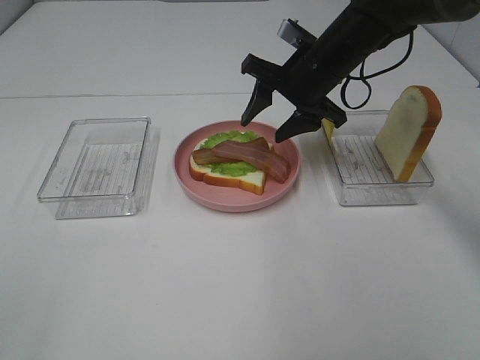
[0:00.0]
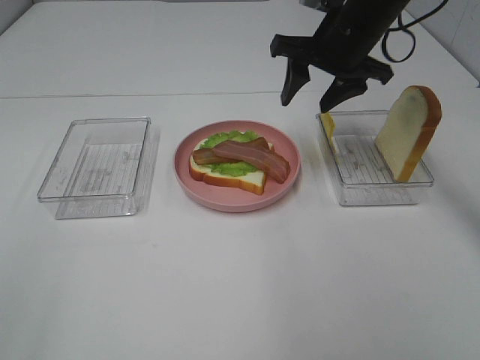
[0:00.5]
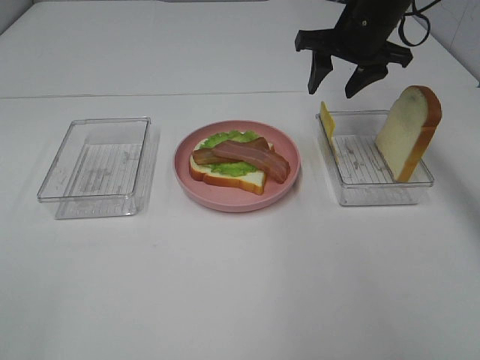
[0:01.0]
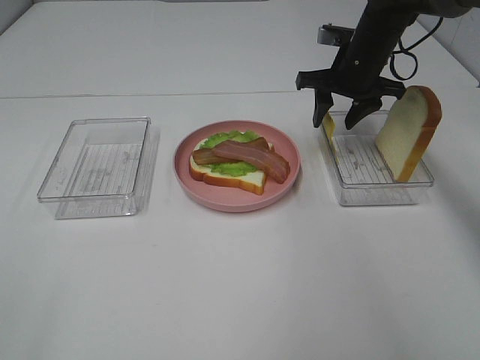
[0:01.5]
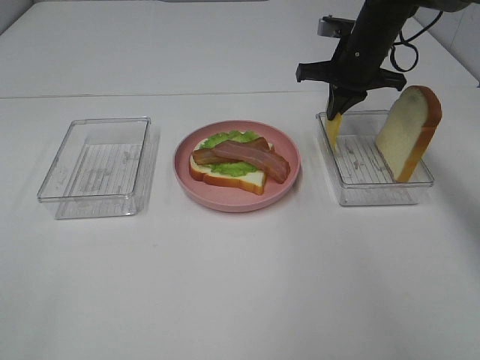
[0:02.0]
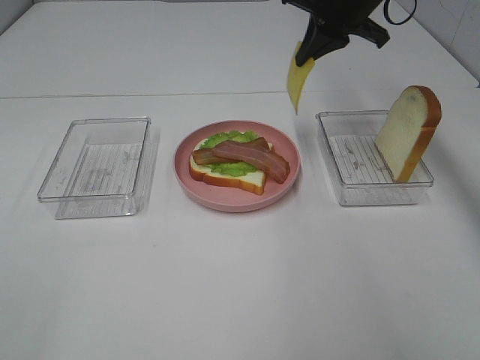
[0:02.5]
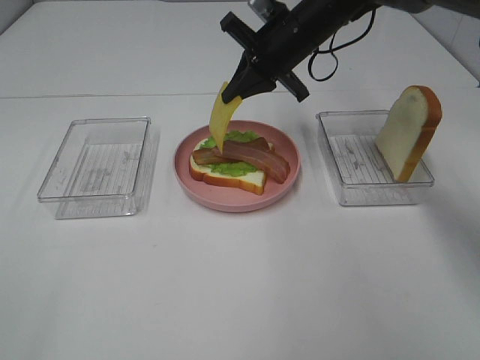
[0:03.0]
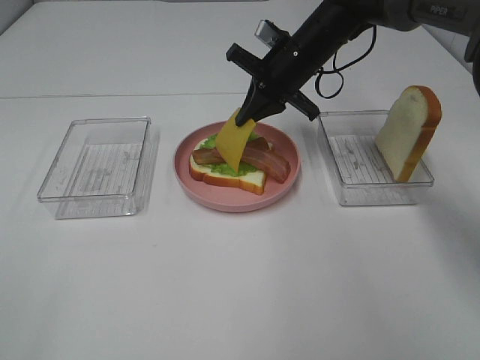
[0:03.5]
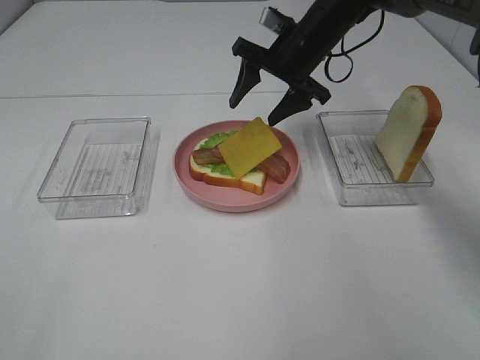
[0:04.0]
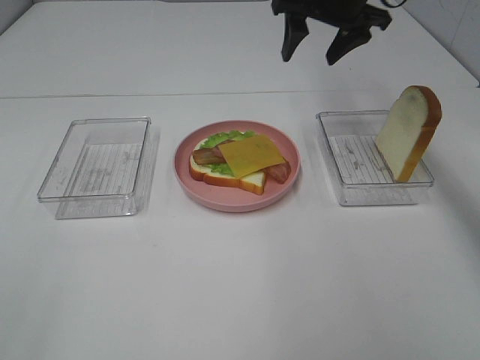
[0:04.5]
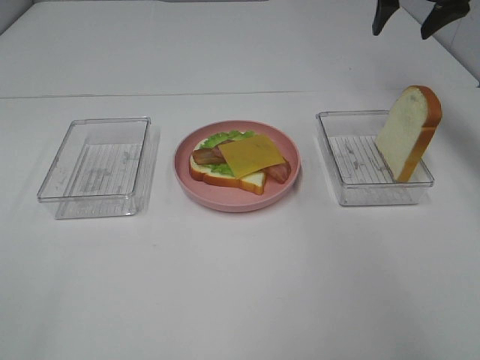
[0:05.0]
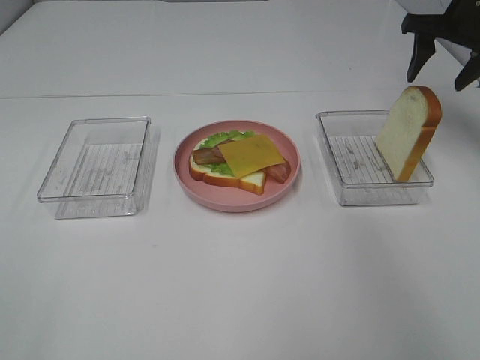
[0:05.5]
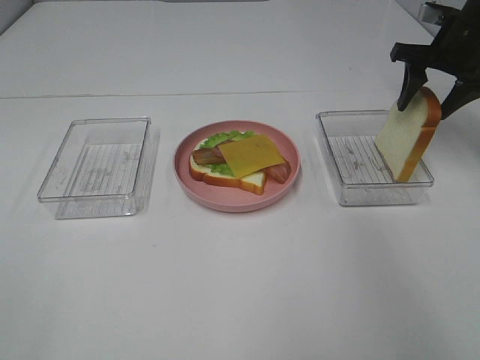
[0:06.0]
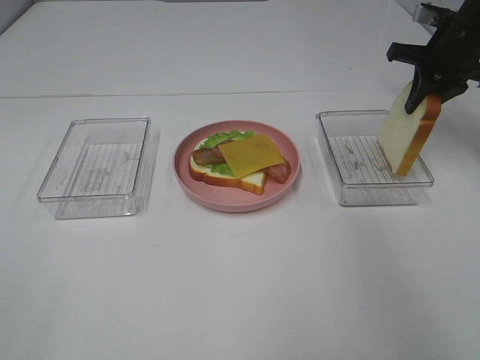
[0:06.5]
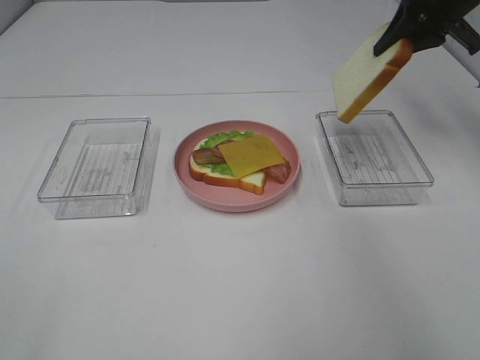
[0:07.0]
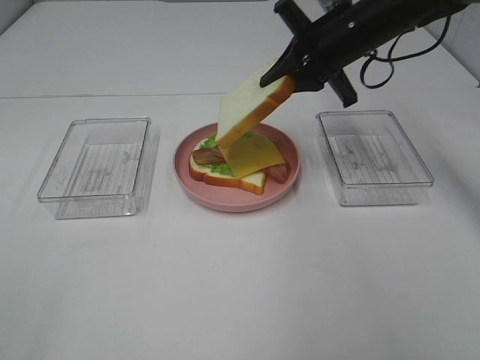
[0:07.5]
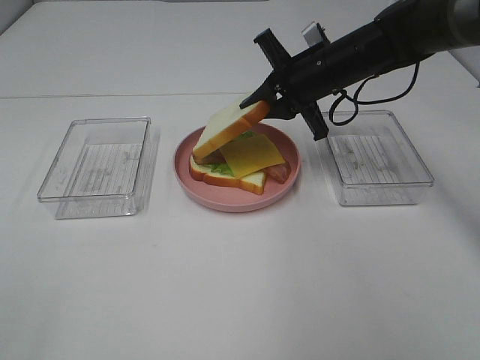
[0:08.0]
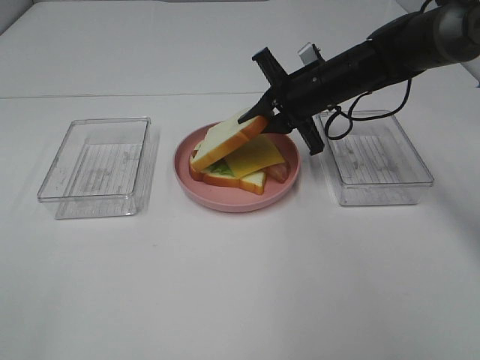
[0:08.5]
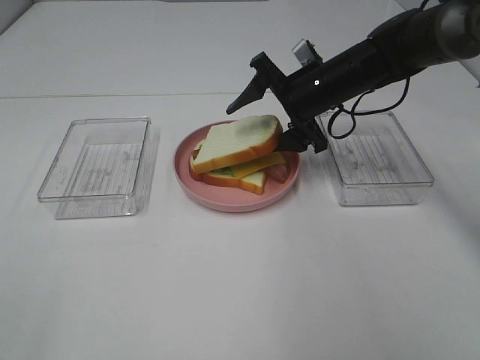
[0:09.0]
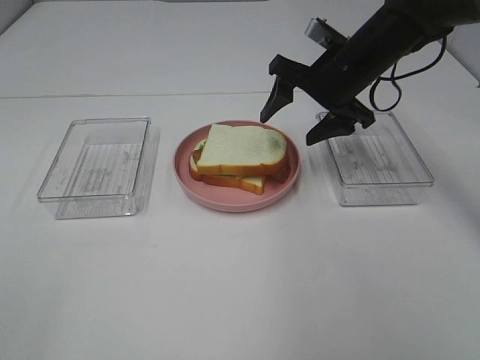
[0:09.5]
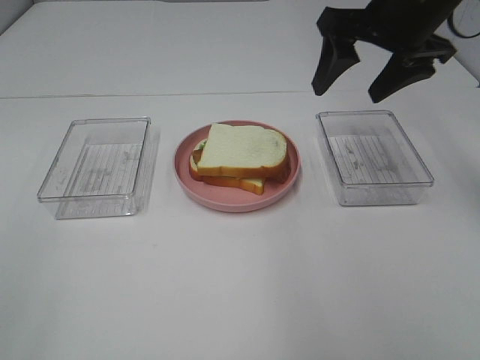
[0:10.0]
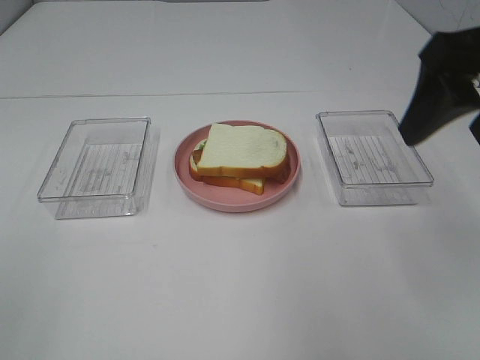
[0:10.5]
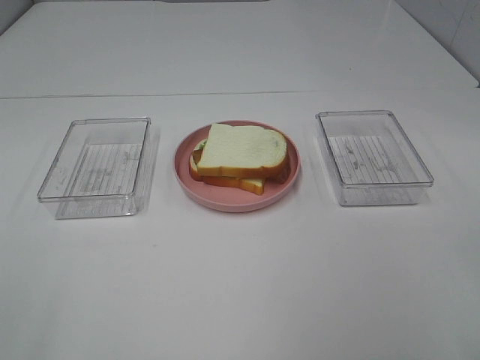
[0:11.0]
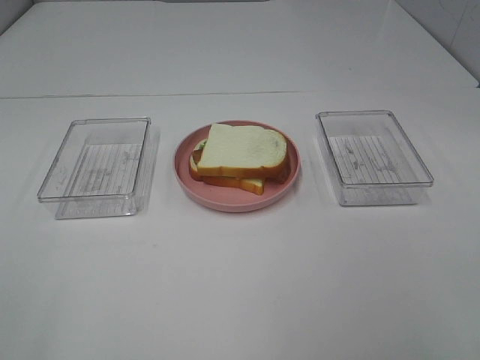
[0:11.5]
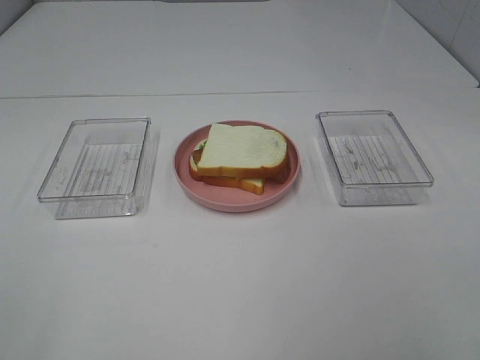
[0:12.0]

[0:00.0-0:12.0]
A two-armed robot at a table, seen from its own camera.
Task of the whole recording: Make sandwiches.
Step, 0:00.0 to 0:01.5: Right hand:grab the cheese slice.
Step, 0:02.0 to 0:04.0: Right hand:place the cheese slice on top of the bacon.
Step, 0:04.5 to 0:06.5: Right hand:grab the bread slice.
Step, 0:07.0 to 0:09.0: Right hand:place the bread slice on the cheese slice.
0:00.0 to 0:02.0: The right gripper travels forward and to the right by some 10 cm, and closes.
0:02.0 to 0:04.0: The right gripper goes some 10 cm to the left, moves approximately 10 cm upward and comes back, and opens.
0:04.0 to 0:06.0: The right gripper heads to the right, covering approximately 20 cm.
0:06.0 to 0:08.0: The right gripper goes about 20 cm to the left, and closes up.
0:08.0 to 0:10.0: The right gripper moves upward and backward, about 15 cm, and opens up.
0:10.0 to 0:12.0: The right gripper is displaced backward by about 30 cm.

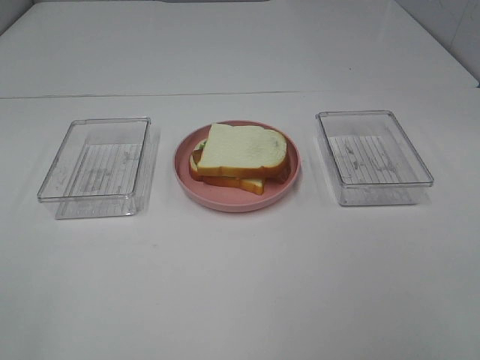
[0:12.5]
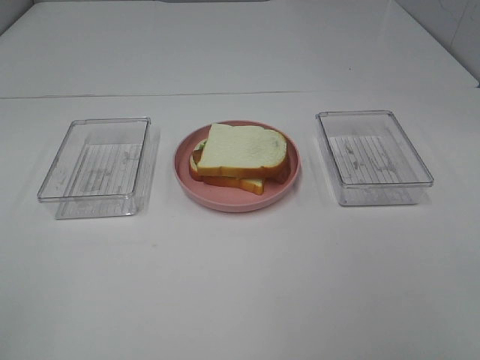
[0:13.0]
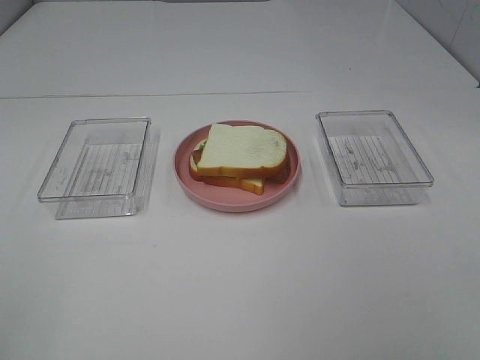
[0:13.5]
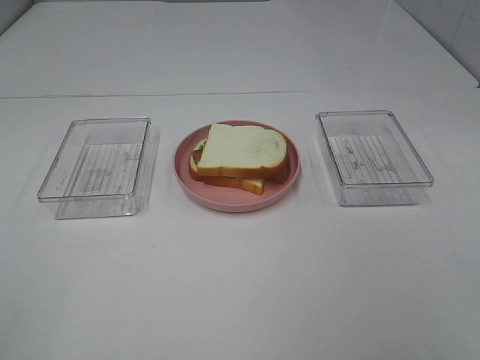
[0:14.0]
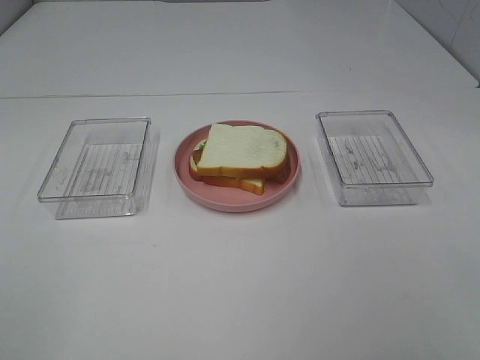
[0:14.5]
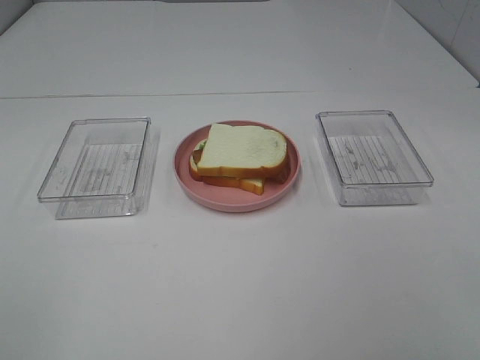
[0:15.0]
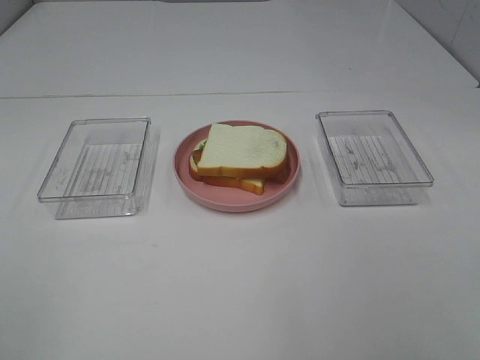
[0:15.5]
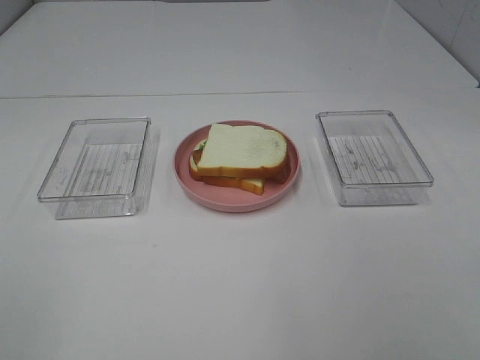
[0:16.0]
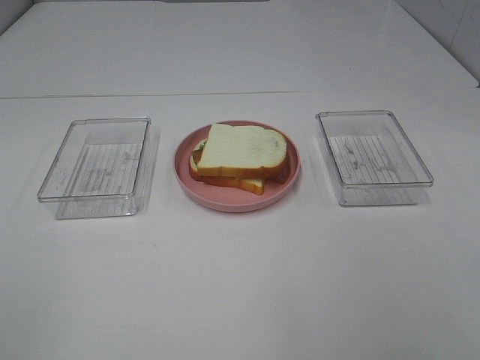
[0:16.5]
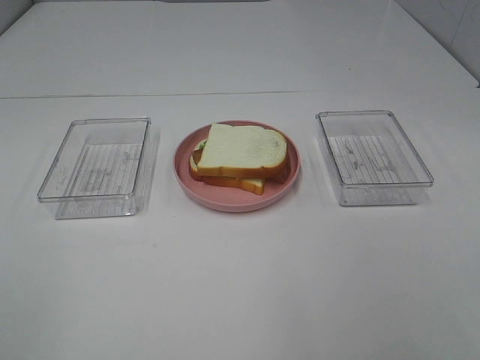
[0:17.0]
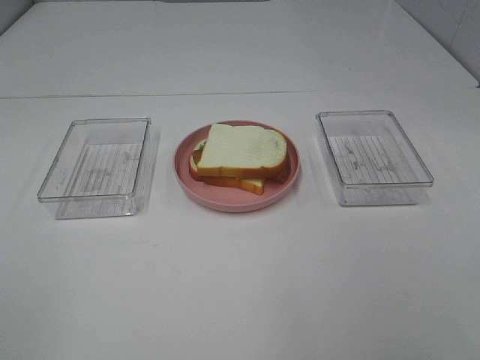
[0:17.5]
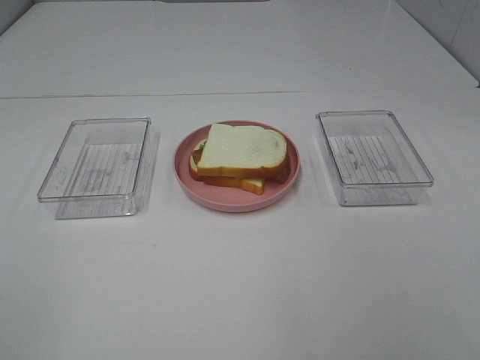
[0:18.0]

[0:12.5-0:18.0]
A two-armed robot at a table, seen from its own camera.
Task of the whole recording: Make sandwiches.
0:16.0 to 0:18.0: Neither gripper changes place.

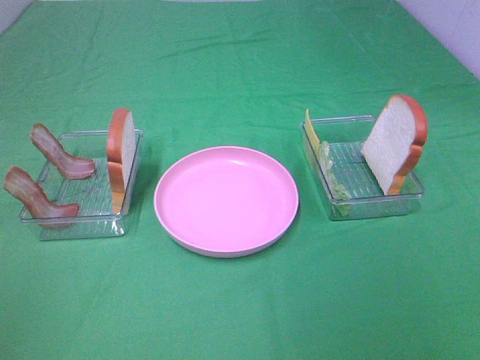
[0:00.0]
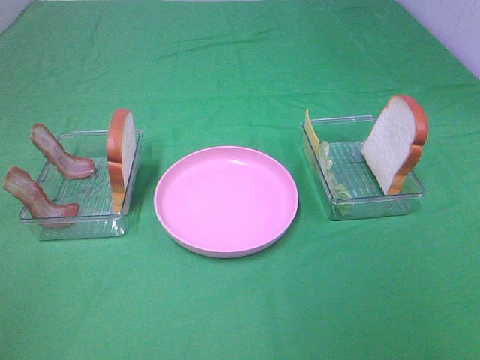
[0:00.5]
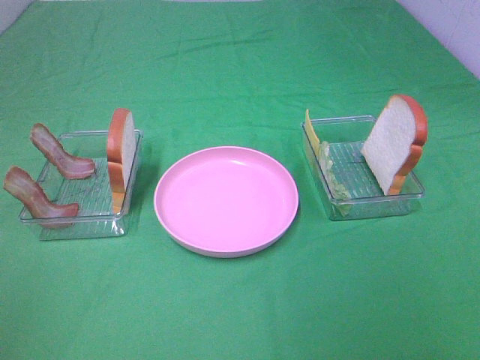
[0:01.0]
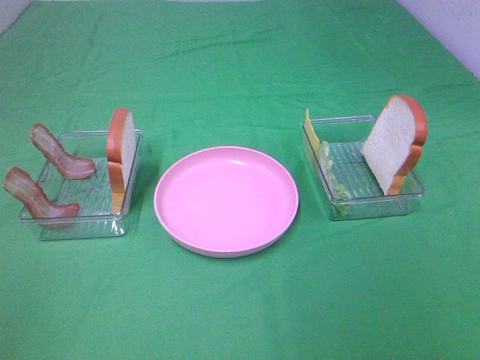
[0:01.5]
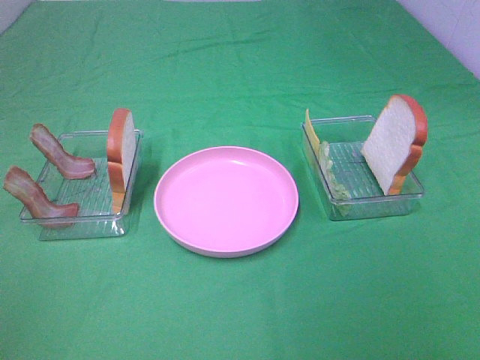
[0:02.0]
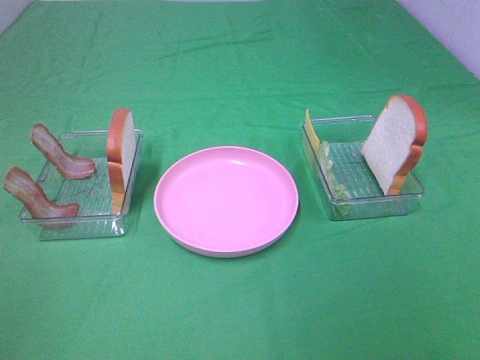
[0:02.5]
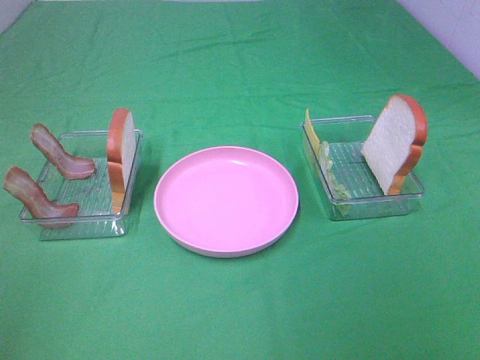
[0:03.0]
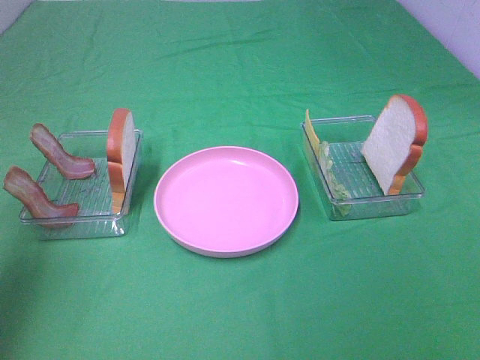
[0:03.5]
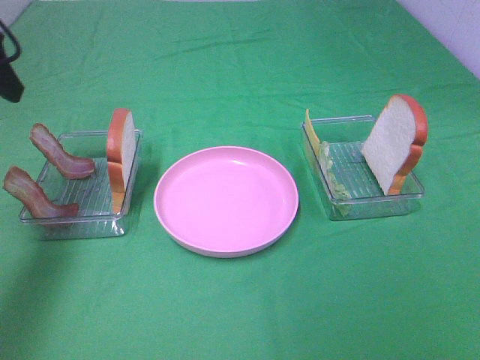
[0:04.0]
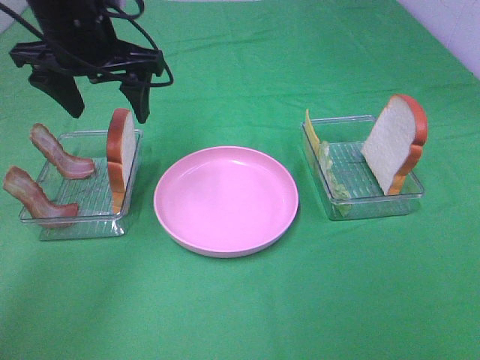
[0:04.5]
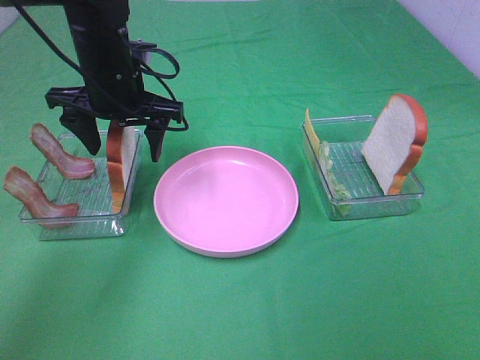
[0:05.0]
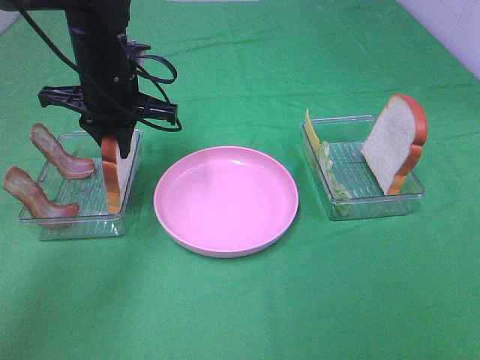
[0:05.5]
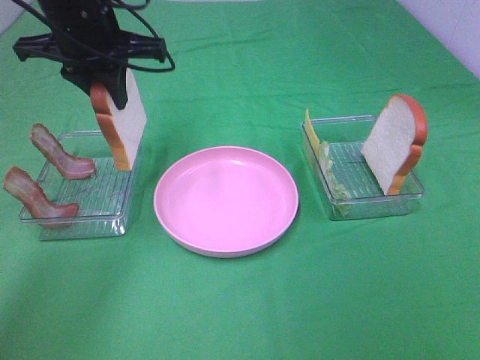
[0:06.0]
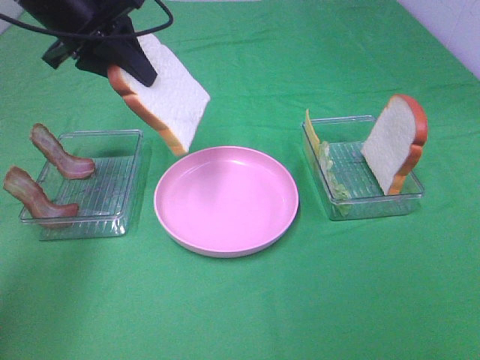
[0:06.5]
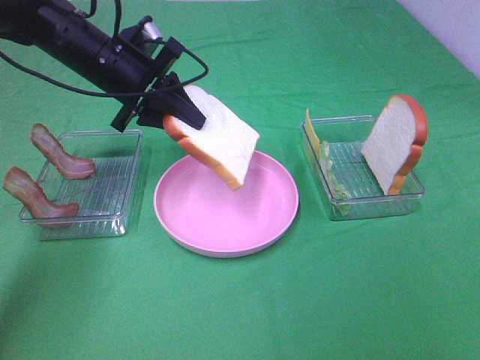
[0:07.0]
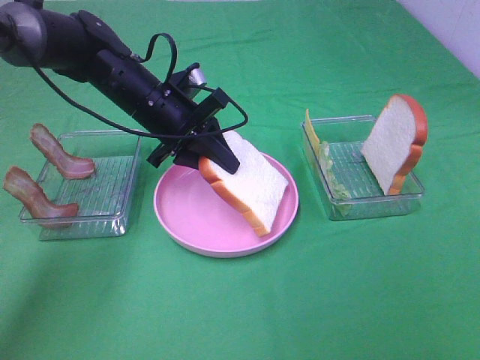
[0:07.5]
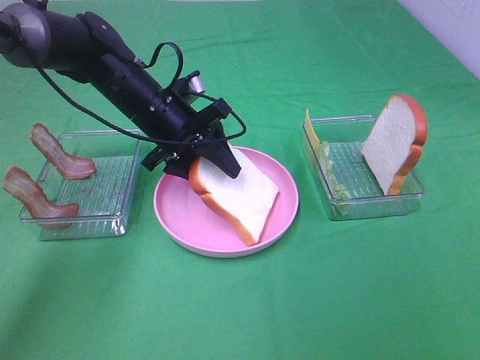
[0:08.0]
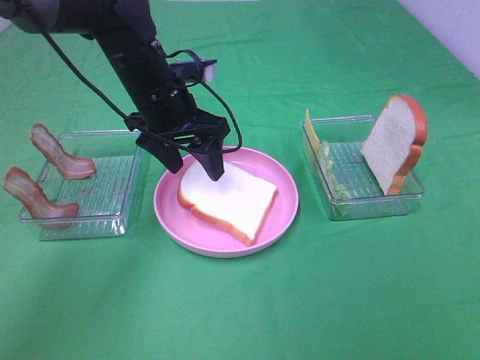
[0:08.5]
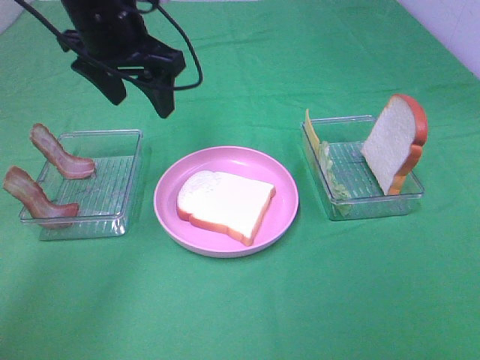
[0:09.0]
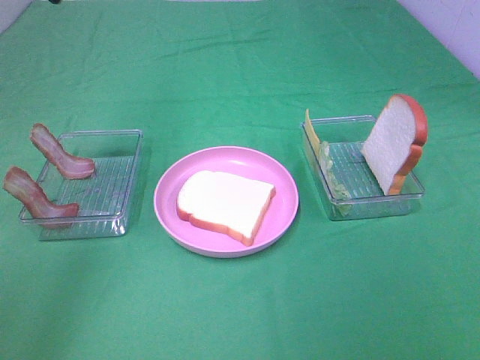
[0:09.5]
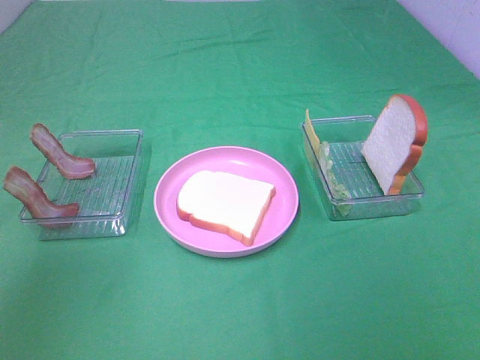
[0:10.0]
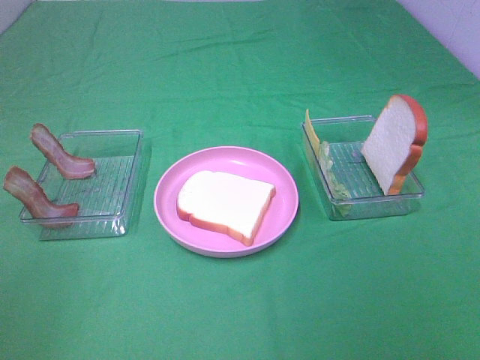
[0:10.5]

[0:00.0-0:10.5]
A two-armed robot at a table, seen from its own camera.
Task of the whole recording: Make sandwiches.
Step, 0:00.0 to 0:05.5: Left hand:grab the bread slice.
Step, 0:06.0 to 0:08.5: Left hand:place the bread slice on the plate.
0:00.0 to 0:02.0: Both grippers stay about where they are.
0:02.0 to 0:04.0: The left gripper moves forward, roughly 30 cm.
0:04.0 to 0:06.5: The left gripper goes about 15 cm to the right and forward, and closes its fingers.
0:06.5 to 0:08.5: The left gripper shifts some 15 cm downward and to the right, and opens its fingers.
0:08.5 to 0:10.5: The left gripper heads backward, to the left and upward, covering some 40 cm.
